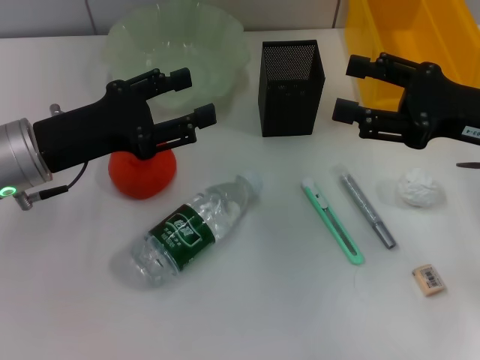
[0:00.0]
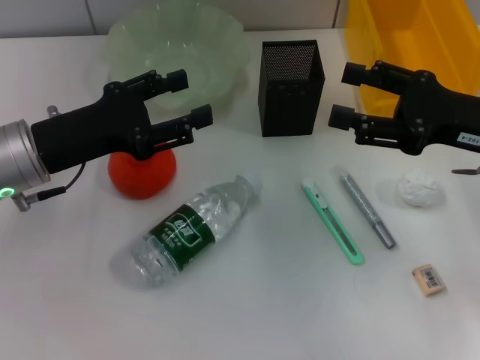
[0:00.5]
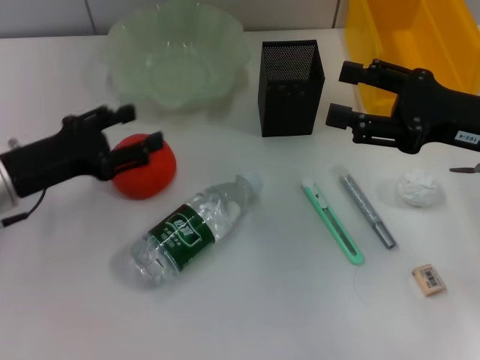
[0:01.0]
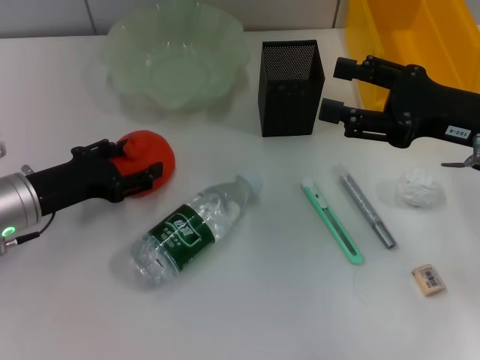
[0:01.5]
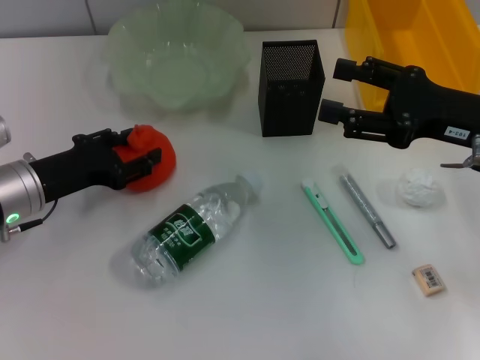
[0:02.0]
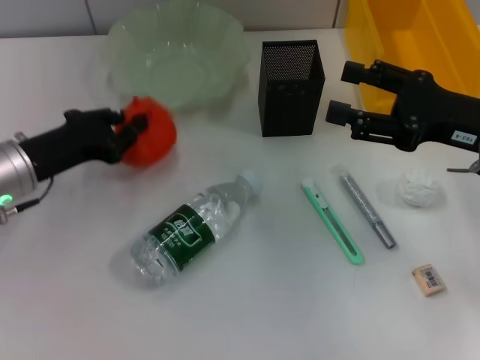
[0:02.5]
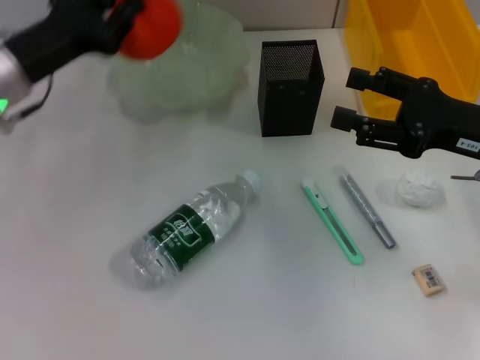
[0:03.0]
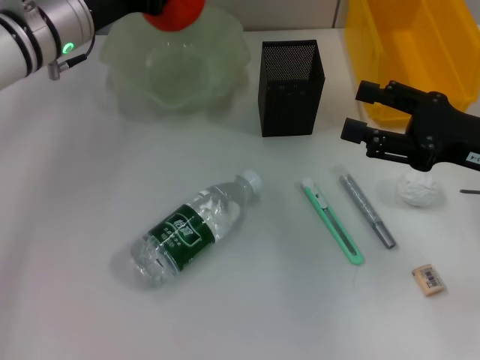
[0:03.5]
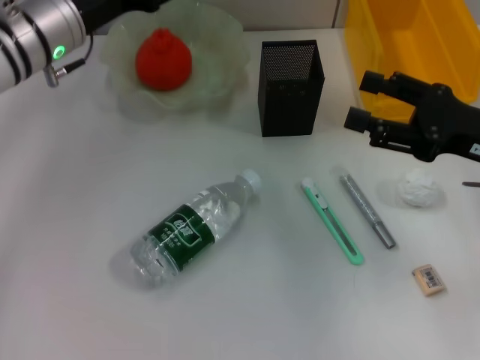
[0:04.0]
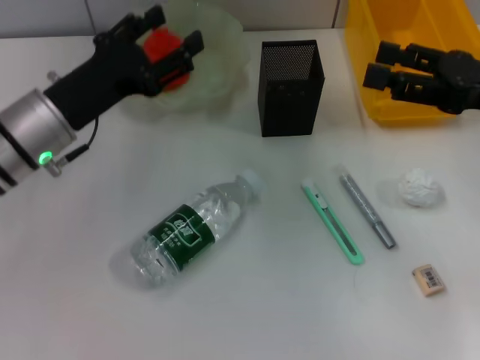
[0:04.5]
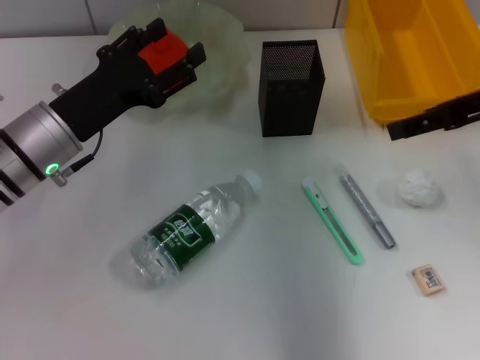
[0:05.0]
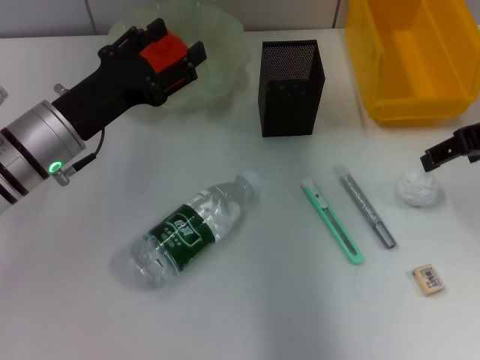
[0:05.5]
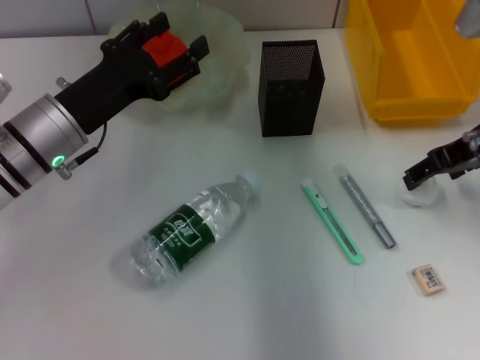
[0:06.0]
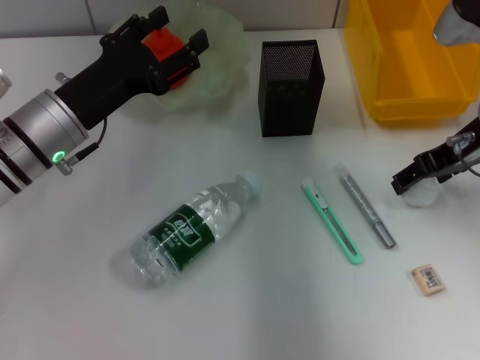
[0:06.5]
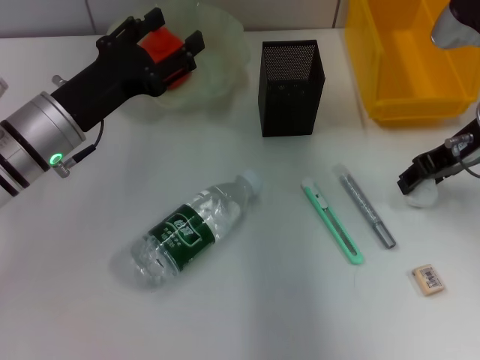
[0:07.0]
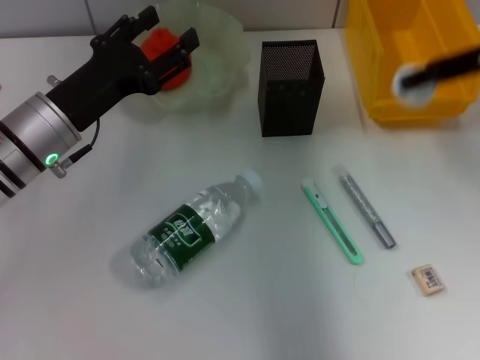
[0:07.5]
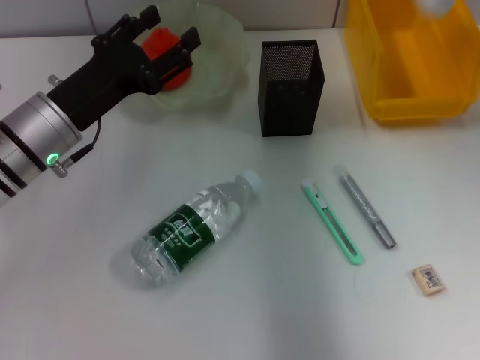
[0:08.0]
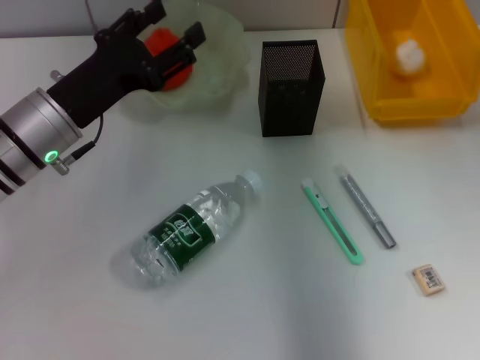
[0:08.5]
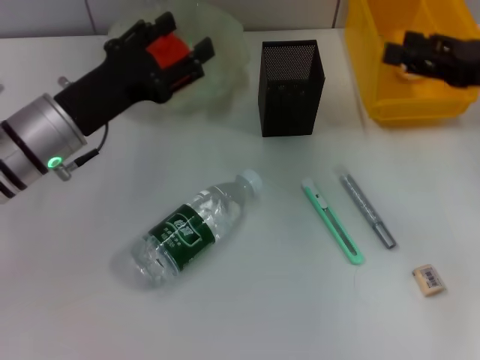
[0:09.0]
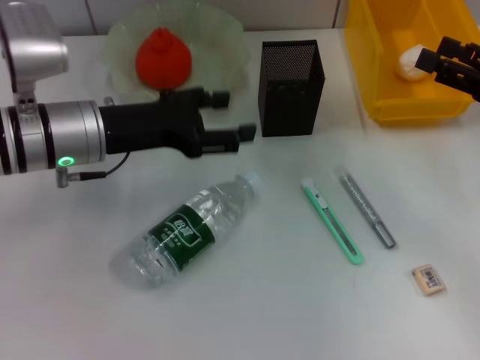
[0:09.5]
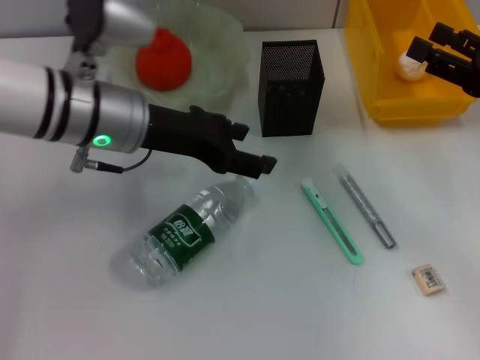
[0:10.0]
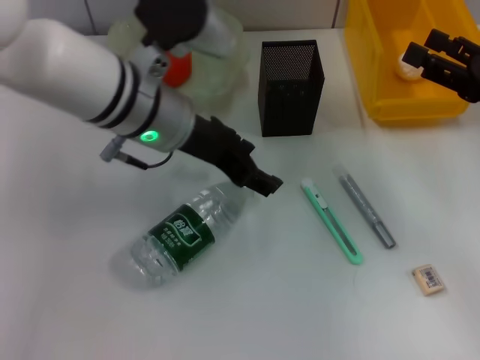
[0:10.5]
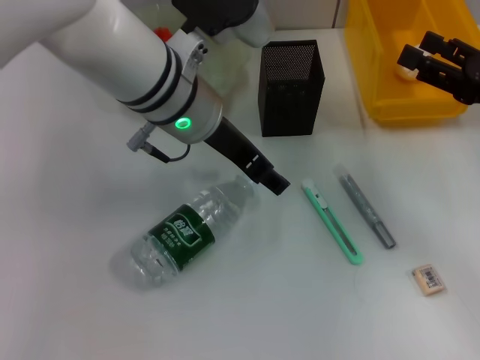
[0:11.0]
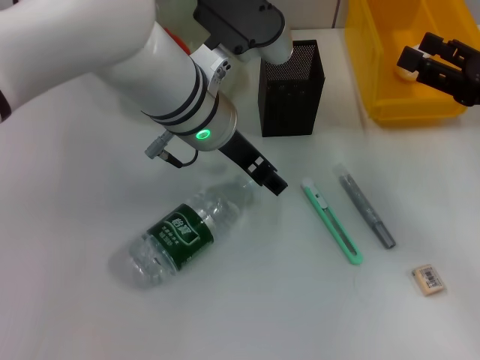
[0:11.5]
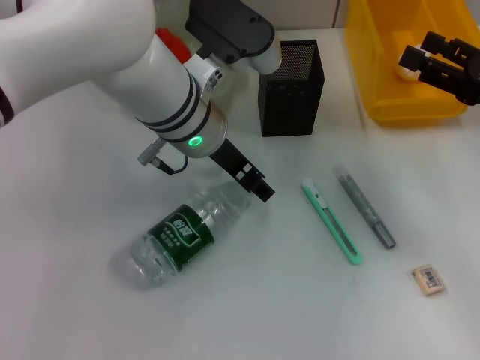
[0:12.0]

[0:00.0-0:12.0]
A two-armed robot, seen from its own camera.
Step, 0:00.0 to 0:02.0: Grab the orange with the left hand.
Step, 0:02.5 to 0:03.5: Place the orange into the fruit bowl with the left hand.
Step, 0:04.5 to 0:06.5: Grab the paper ball with the right hand.
Step, 0:07.5 to 0:08.0: Place the paper ball into the trash can with the right hand.
0:00.0 to 0:02.0: The left gripper shifts about 5 cm downward.
0:02.0 to 0:04.0: The left gripper moves forward, upward and to the right, about 15 cm, and closes, then reopens.
0:04.0 to 0:06.0: The right gripper goes approximately 5 cm forward, while the left gripper goes approximately 10 cm backward and downward.
0:06.0 to 0:08.0: The right gripper shifts some 10 cm upward, and closes.
0:08.0 to 0:10.0: The left gripper moves to the right and upward, approximately 10 cm. Meanwhile the right gripper travels downward and backward by some 15 cm, and opens up.
0:10.0 to 0:12.0: The left gripper travels to the right by some 10 cm.

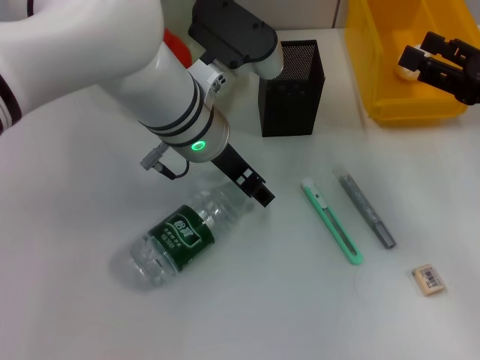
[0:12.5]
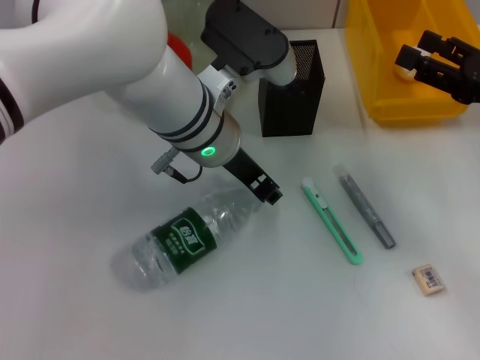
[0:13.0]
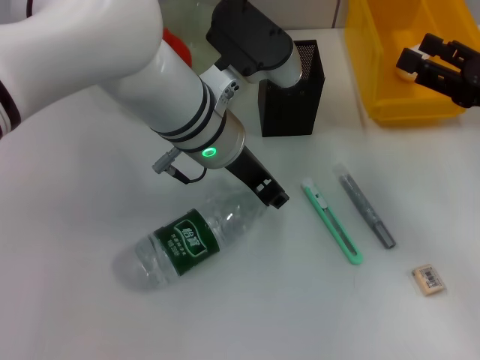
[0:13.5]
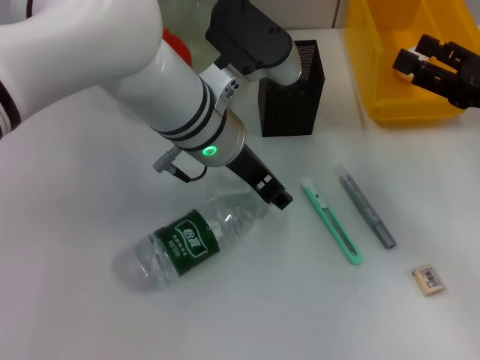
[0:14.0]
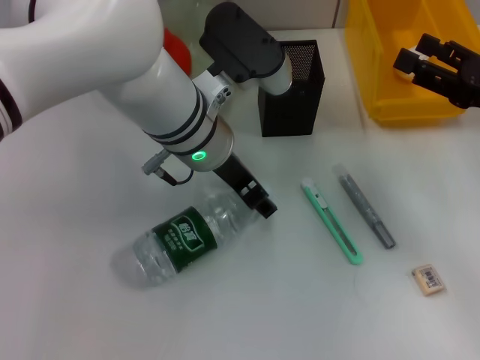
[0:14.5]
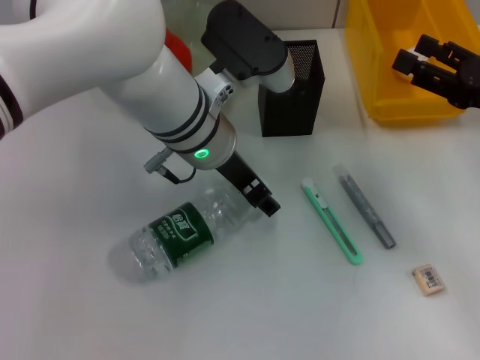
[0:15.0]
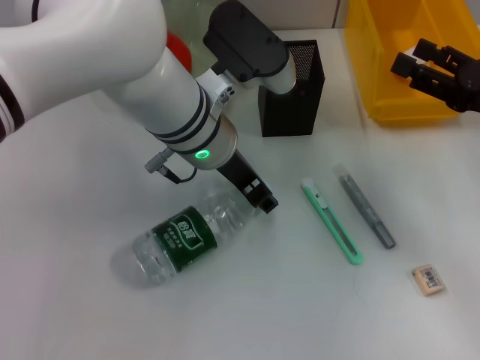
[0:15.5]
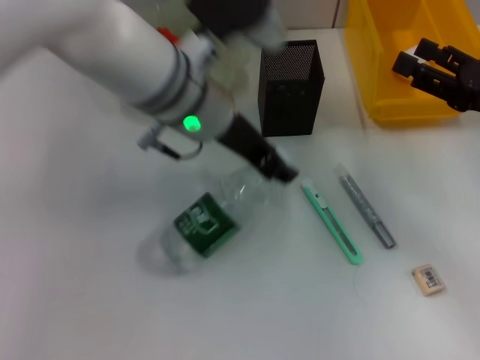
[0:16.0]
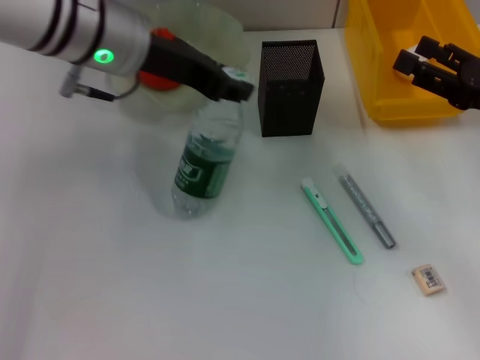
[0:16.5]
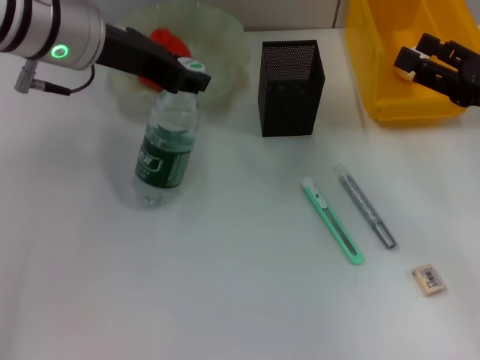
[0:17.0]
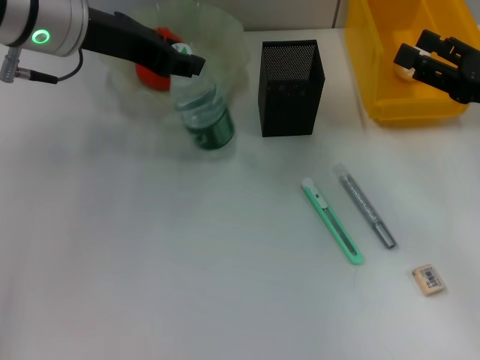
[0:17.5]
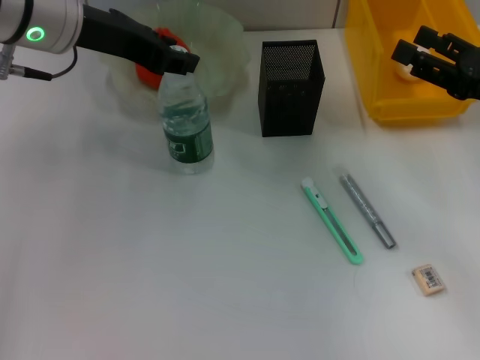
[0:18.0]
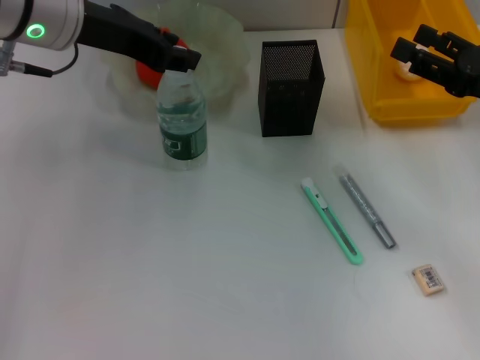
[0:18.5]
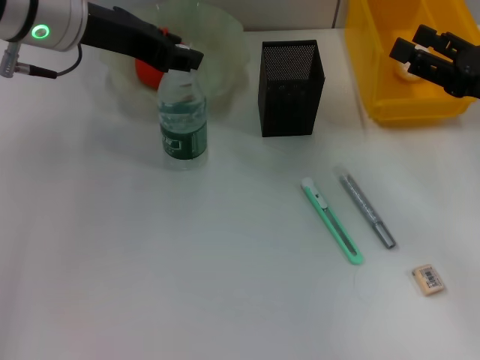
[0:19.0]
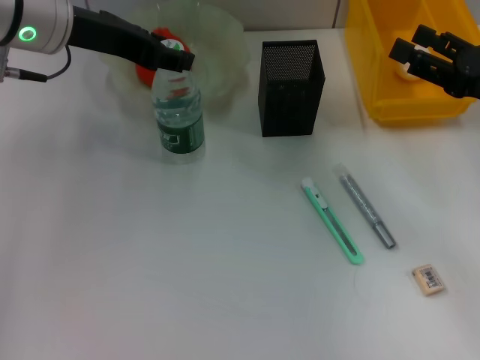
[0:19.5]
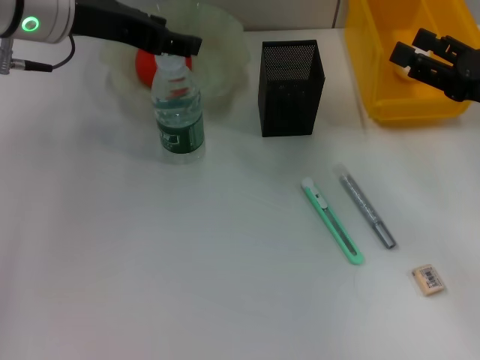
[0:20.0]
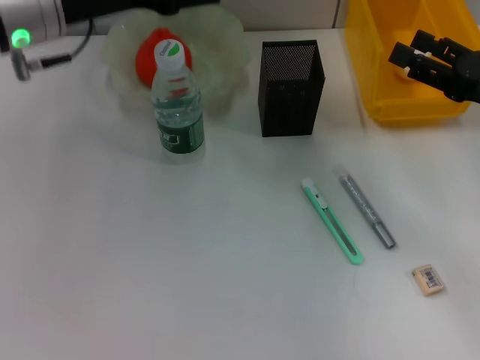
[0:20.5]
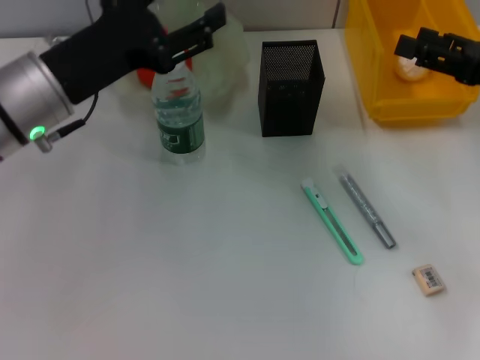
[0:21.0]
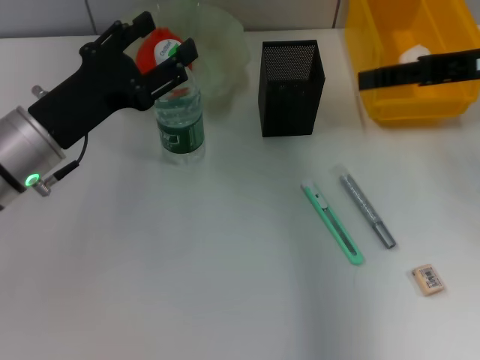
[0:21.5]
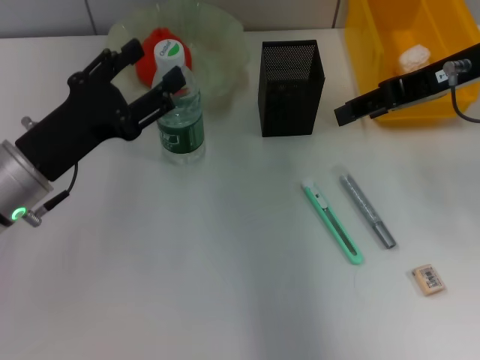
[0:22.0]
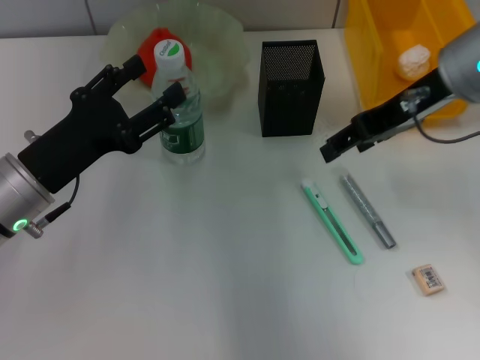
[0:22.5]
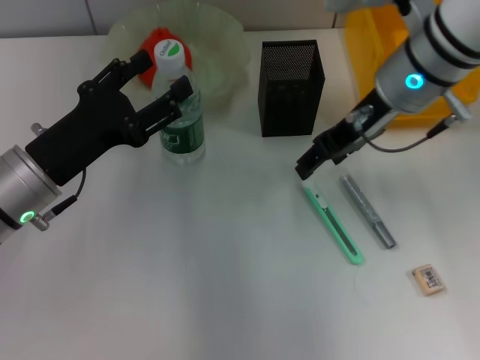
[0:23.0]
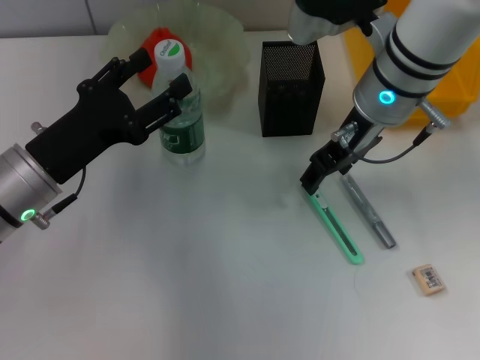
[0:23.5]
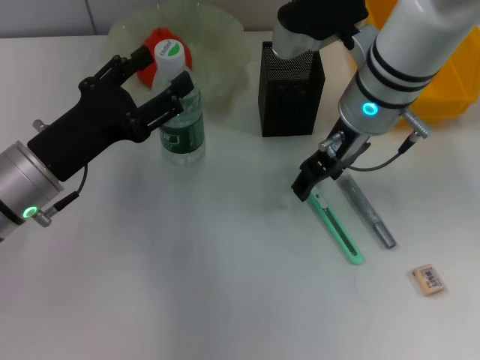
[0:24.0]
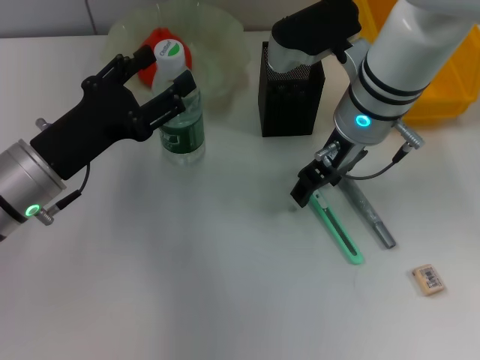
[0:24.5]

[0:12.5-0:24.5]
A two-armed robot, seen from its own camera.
Step, 0:12.5 to 0:15.5: Grab the water bottle with the left hand.
Step, 0:16.0 to 0:20.0: Place the water bottle on the table with the left hand.
0:12.5 to 0:14.5: The left gripper closes, then opens again.
0:14.5 to 0:16.5: The left gripper is displaced to the left and upward by about 10 cm, and closes up.
0:16.5 to 0:18.5: The grippers move only a little.
0:18.5 to 0:20.5: The left gripper opens.
0:20.5 to 0:22.5: The left gripper is displaced downward and backward by some 15 cm, while the right gripper is displaced to the left, upward and forward by approximately 15 cm.
0:22.5 to 0:24.5: The right gripper moves to the left and downward, some 10 cm.

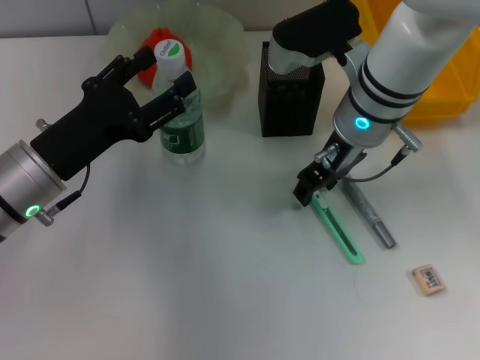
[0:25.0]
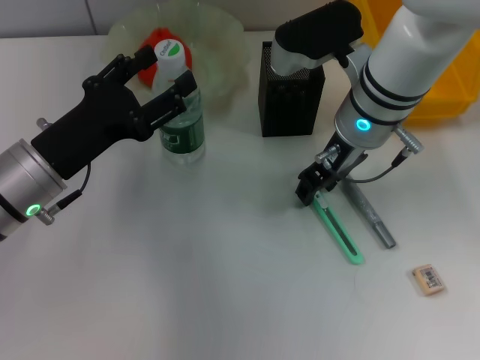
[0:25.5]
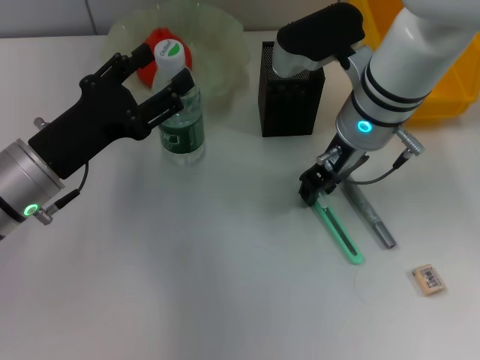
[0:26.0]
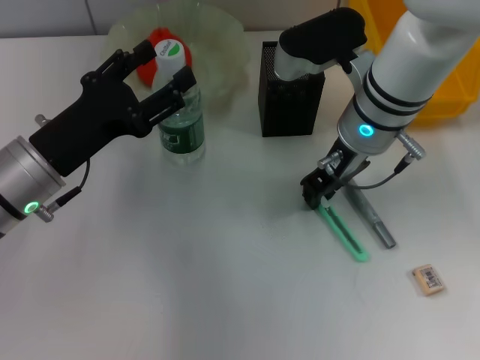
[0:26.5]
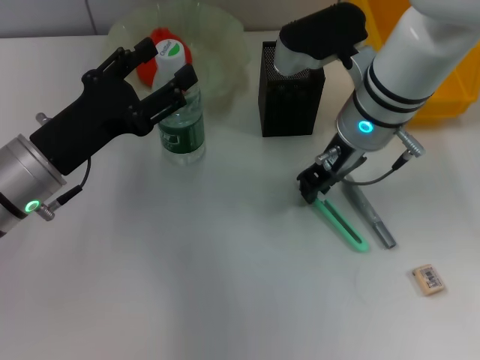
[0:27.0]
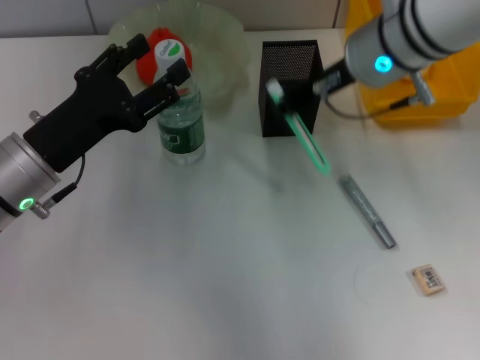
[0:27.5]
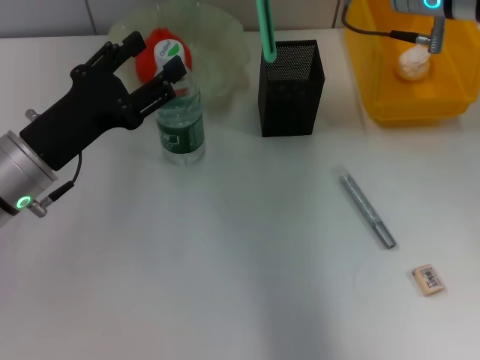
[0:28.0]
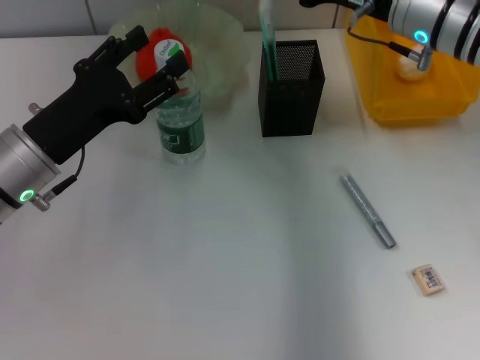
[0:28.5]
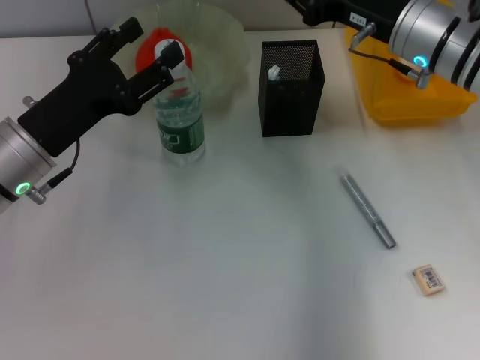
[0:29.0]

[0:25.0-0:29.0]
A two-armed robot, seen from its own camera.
0:25.0 to 0:27.0: The right gripper closes its fingers.
0:27.0 to 0:29.0: The right gripper moves to the right, some 10 cm, and reaches about 10 cm upward, then returns.
